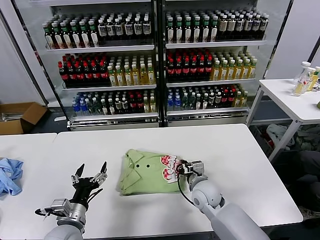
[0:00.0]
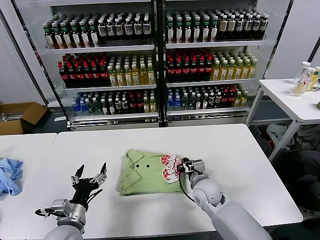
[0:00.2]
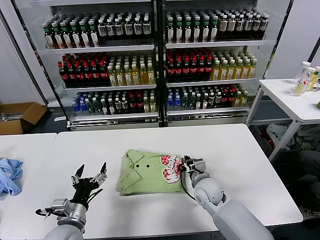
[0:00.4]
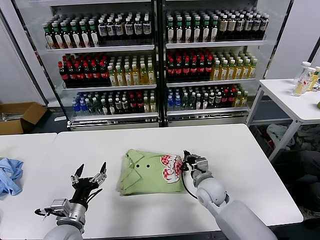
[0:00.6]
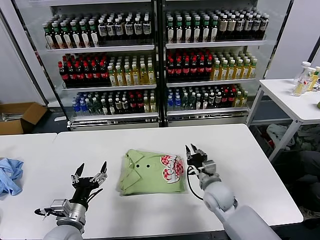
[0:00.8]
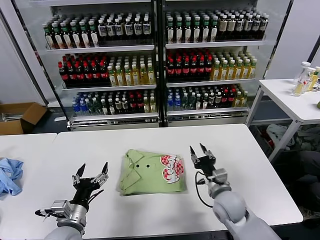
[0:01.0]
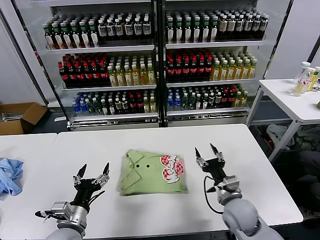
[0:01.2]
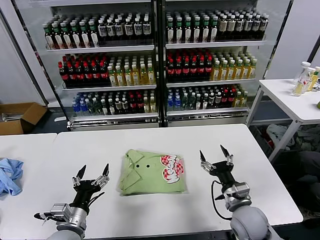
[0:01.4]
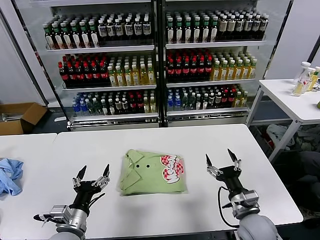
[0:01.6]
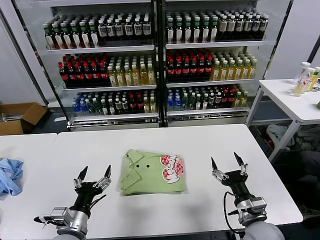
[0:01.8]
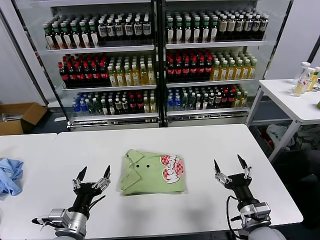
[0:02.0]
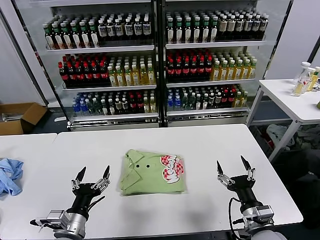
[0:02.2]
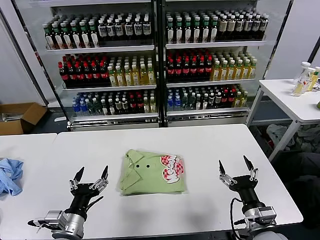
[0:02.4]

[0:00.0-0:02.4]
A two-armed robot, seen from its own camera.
Task of the whole recording: fold and organize the clothes.
0:00.0 to 0:01.2: The right gripper heads to the right and backward, covering approximately 10 cm, and opens its fingers.
0:01.2 to 0:02.4: The right gripper goes about 10 cm backward and to the right.
